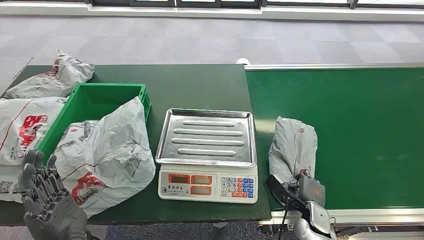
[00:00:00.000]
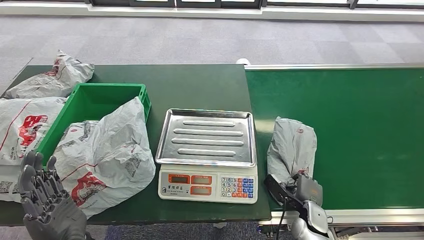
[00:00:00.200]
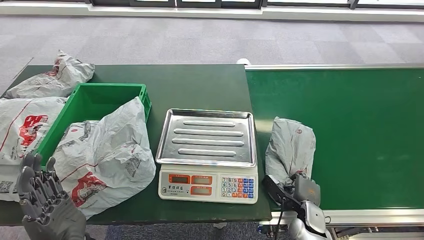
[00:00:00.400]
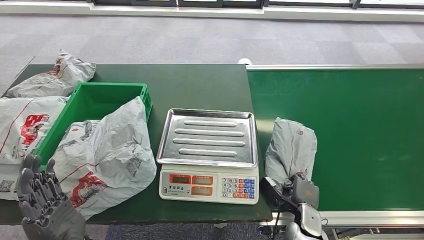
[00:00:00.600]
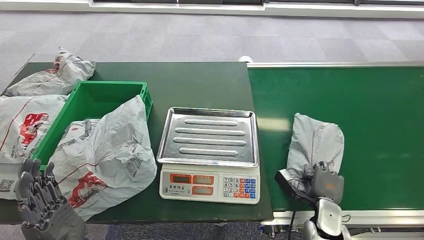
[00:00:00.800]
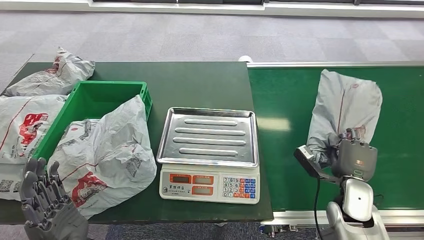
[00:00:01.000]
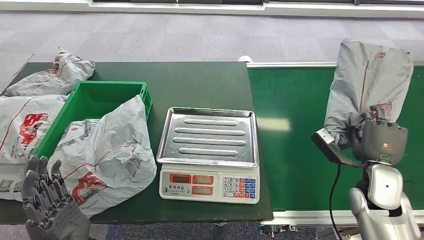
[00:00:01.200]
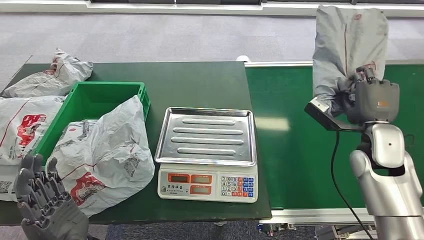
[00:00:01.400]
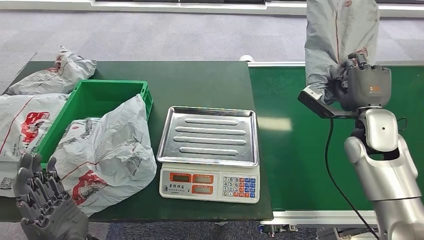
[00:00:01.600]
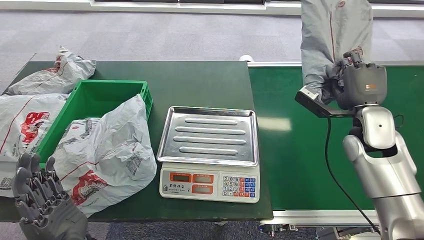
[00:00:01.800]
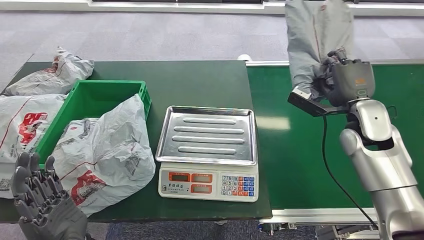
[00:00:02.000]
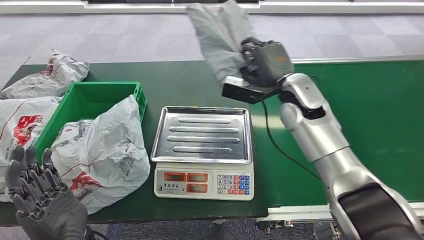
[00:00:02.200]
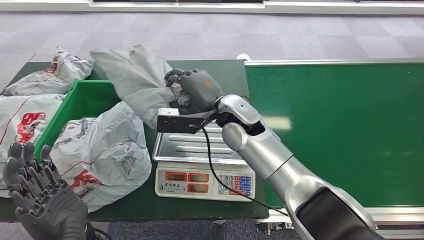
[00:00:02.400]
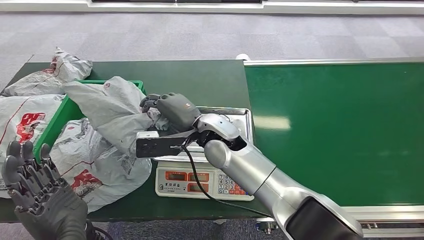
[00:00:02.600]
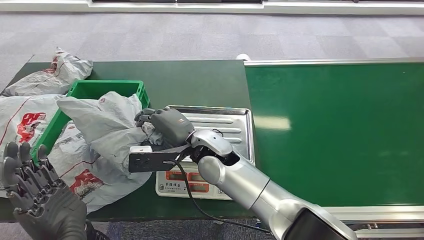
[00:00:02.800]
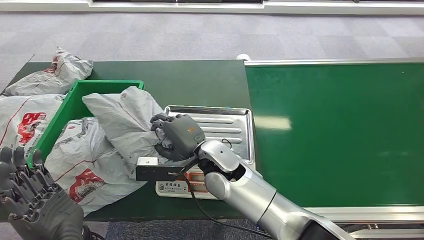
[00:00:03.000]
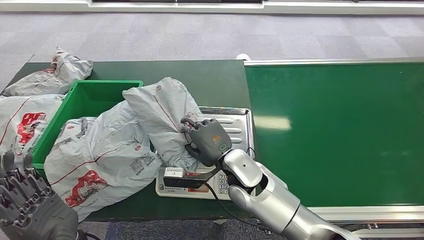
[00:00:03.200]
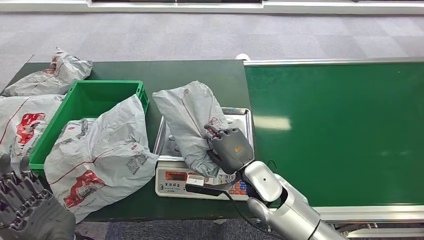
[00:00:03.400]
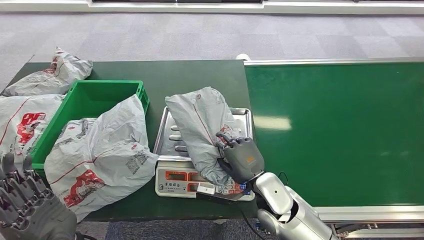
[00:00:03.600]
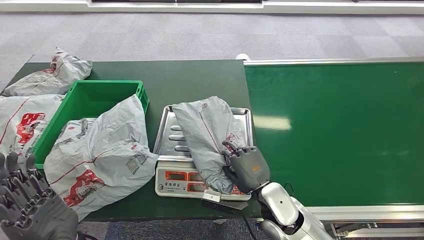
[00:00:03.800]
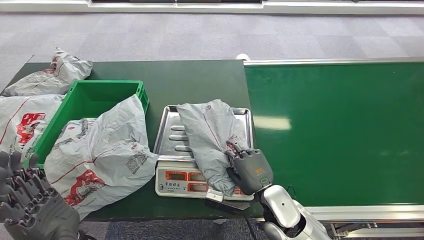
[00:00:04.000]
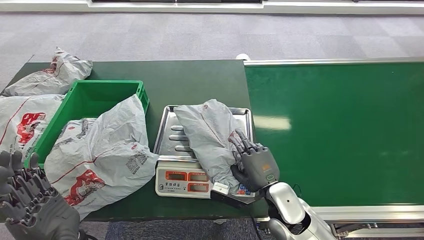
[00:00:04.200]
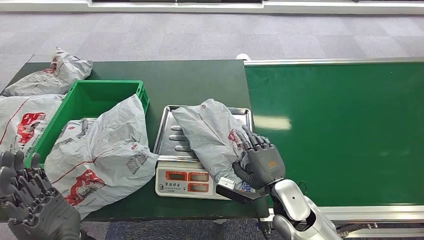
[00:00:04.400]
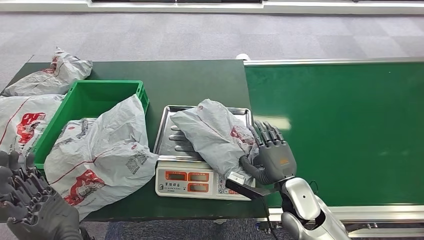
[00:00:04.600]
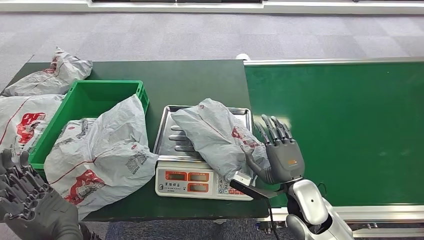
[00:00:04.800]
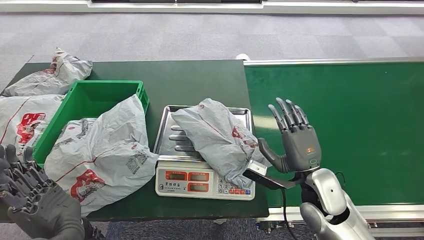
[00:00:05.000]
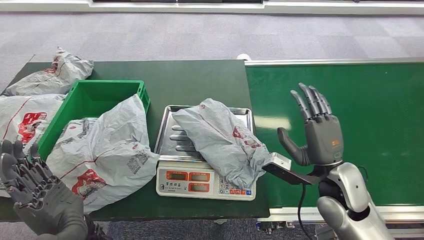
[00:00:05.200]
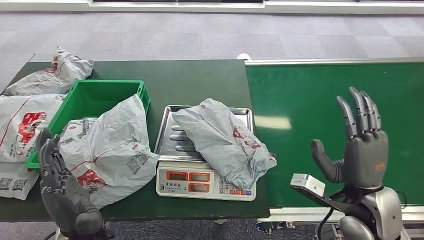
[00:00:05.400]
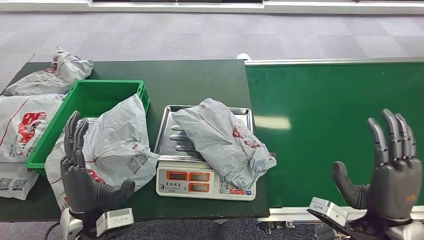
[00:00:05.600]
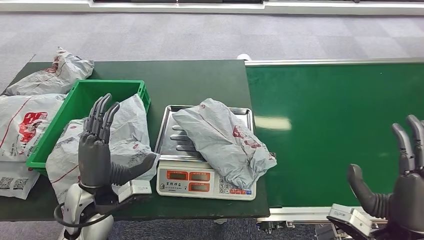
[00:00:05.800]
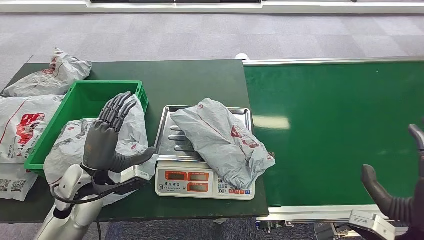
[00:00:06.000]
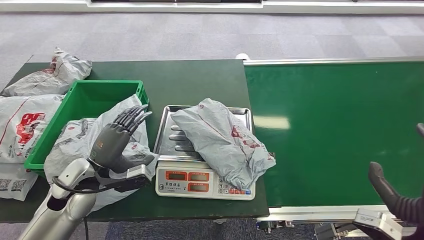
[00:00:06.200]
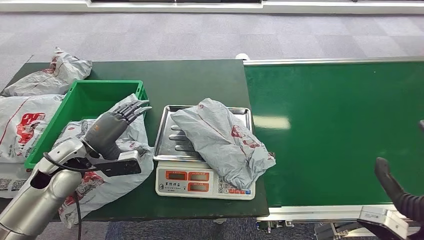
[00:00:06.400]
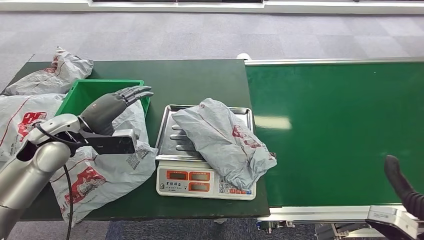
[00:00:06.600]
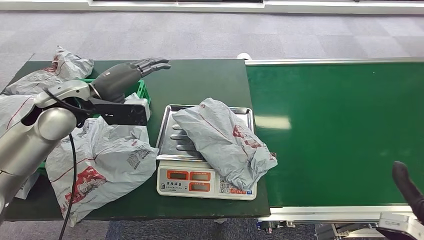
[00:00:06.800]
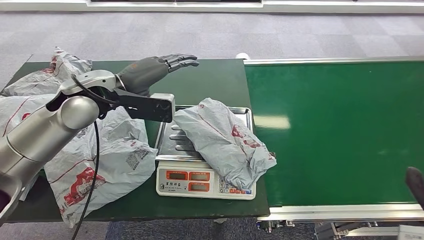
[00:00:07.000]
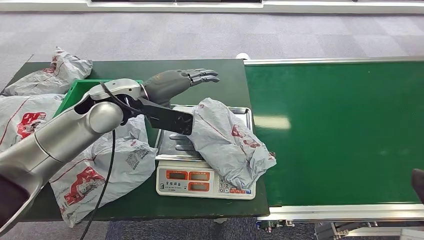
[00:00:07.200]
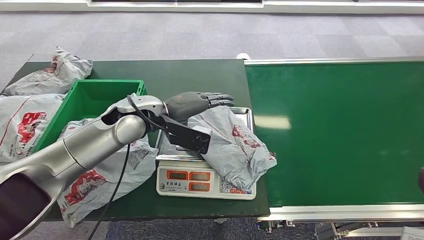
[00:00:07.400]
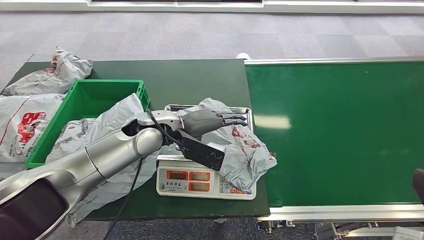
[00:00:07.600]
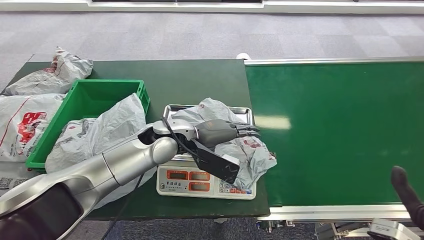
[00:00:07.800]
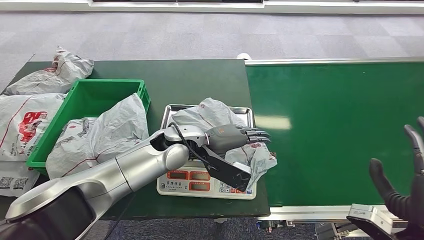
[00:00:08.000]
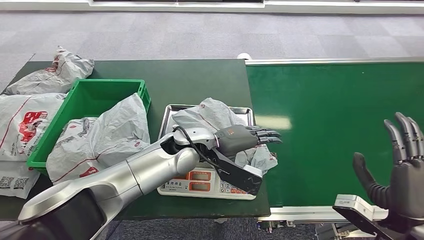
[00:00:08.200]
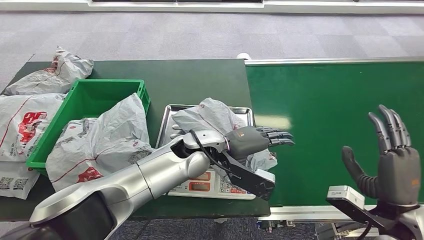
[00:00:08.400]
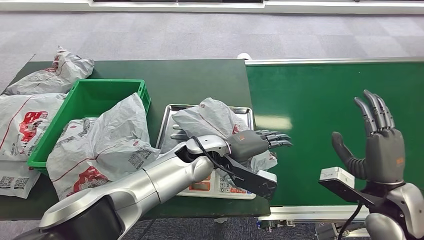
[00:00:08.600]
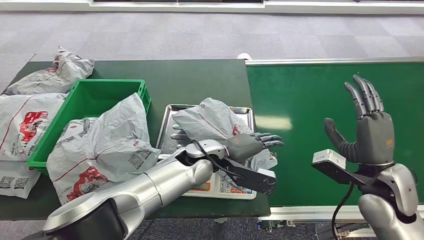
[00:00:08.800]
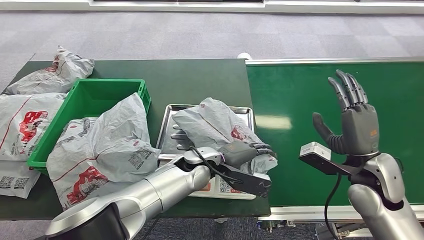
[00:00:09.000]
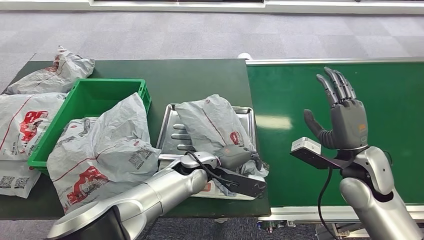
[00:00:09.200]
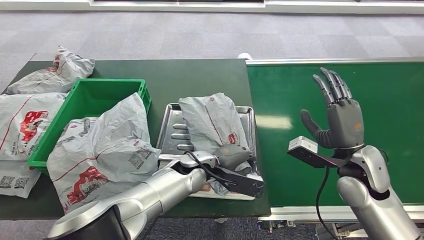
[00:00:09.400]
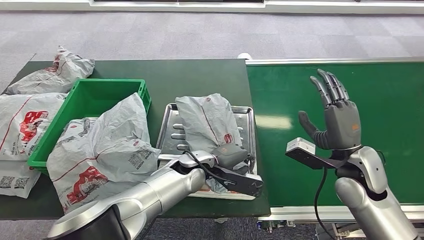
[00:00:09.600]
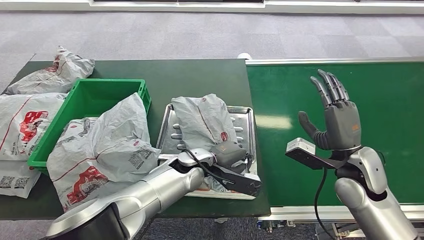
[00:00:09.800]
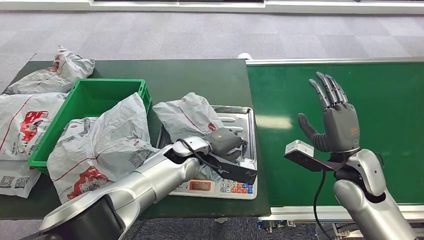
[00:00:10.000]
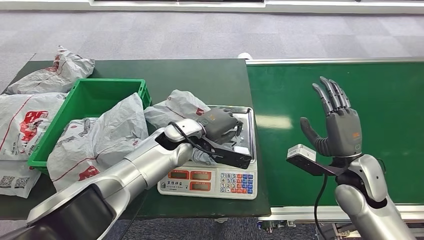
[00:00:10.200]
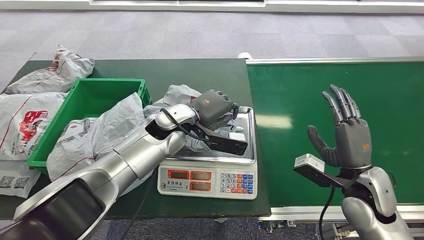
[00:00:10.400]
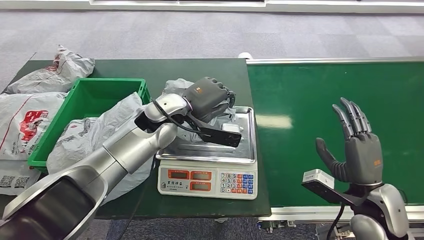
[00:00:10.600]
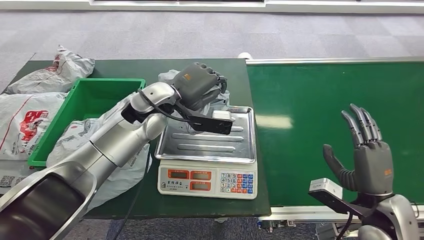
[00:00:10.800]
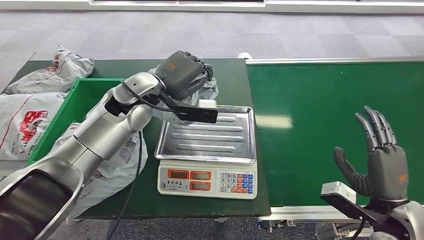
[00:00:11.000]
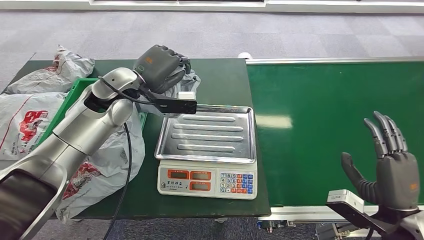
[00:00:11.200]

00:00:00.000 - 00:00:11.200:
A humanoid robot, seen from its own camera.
Task of the whole recording: Weigh the package on the weighing device and place it in the left basket.
Step, 00:00:00.000 - 00:00:01.400: Pick up the package from the conveyor belt.
Step, 00:00:01.600 - 00:00:05.200: Place the package onto the inbound machine.
00:00:03.200 - 00:00:04.800: The right hand goes roughly 15 cm to the right and backward.
00:00:04.800 - 00:00:06.400: The left hand shifts about 20 cm forward and to the left. The right hand shifts approximately 25 cm to the right, backward and upward.

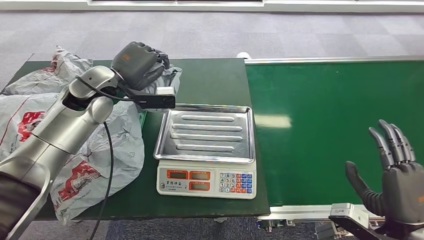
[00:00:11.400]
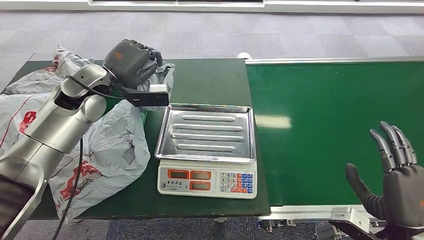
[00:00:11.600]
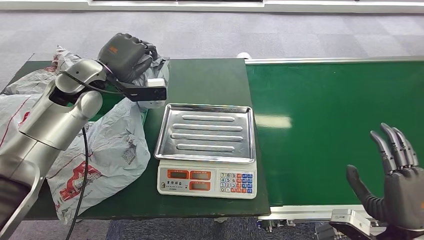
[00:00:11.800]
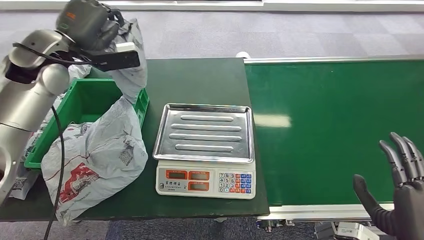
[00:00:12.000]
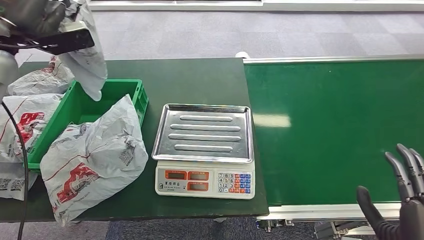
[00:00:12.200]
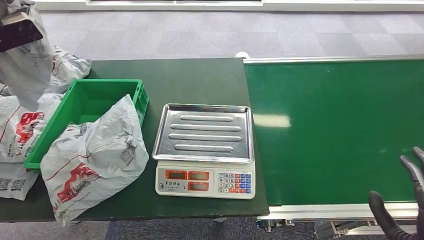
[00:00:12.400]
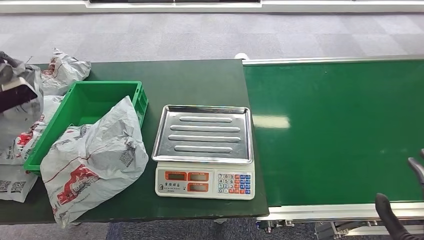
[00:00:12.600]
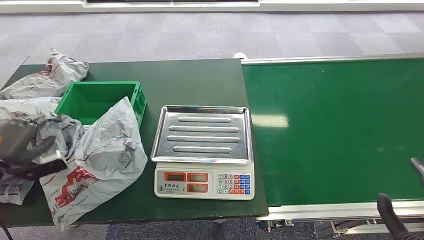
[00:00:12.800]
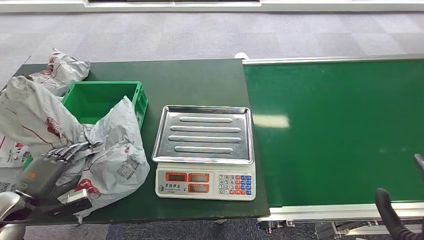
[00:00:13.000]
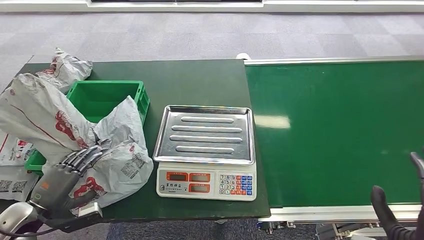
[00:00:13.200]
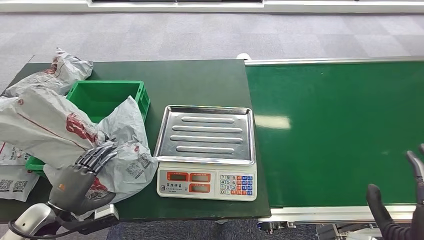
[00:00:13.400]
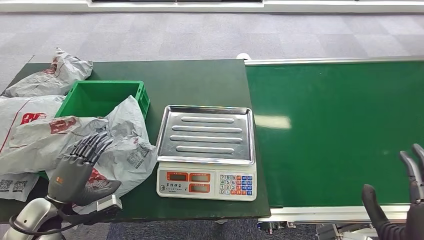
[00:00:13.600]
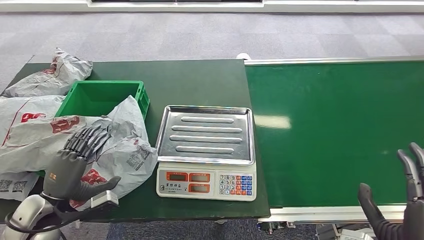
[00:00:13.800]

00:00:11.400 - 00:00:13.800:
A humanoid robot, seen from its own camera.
Task of the whole recording: Weigh the package on the weighing device and place it in the left basket.
Step, 00:00:12.200 - 00:00:13.800: Place the package into the parcel locker.
